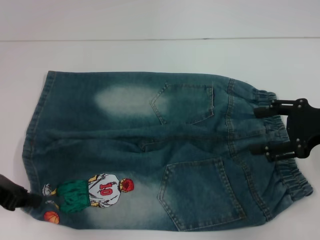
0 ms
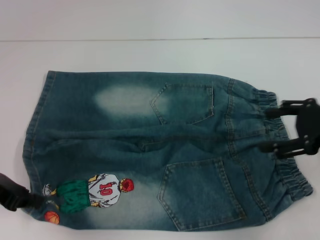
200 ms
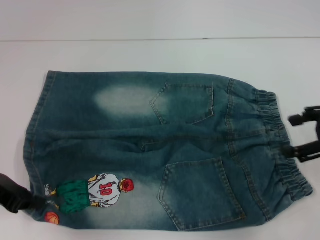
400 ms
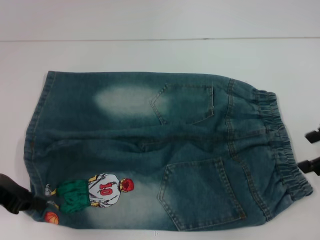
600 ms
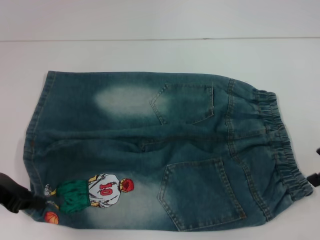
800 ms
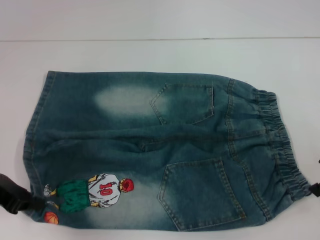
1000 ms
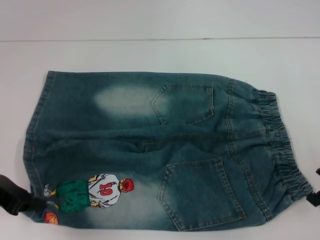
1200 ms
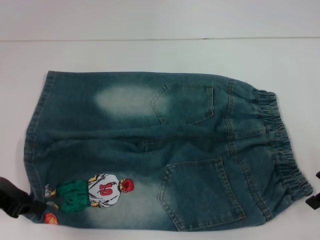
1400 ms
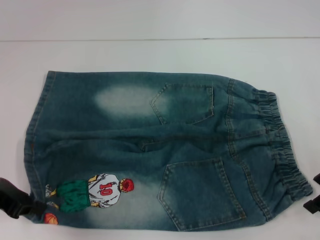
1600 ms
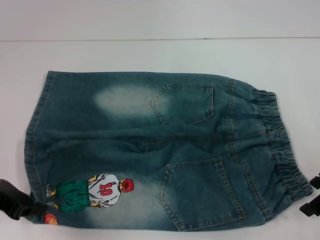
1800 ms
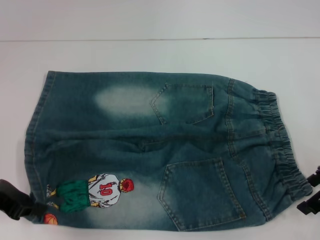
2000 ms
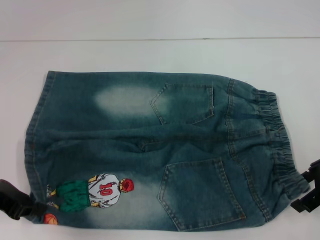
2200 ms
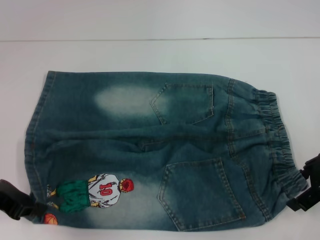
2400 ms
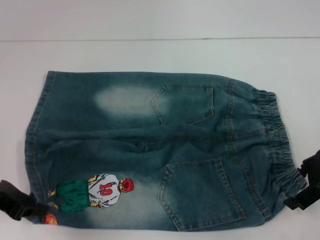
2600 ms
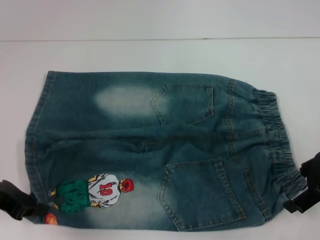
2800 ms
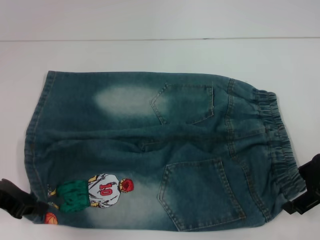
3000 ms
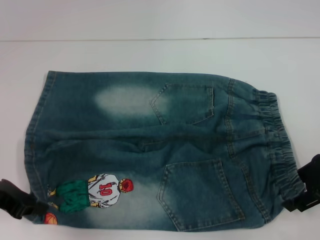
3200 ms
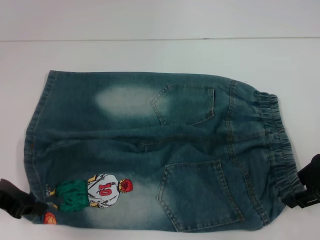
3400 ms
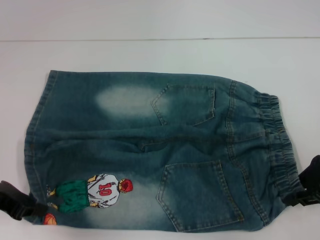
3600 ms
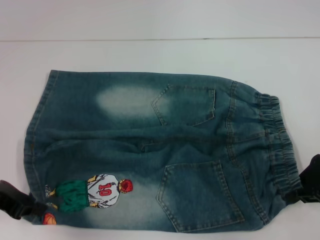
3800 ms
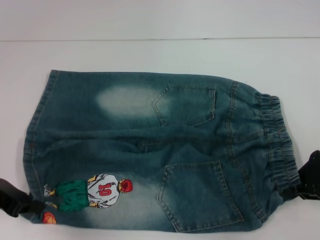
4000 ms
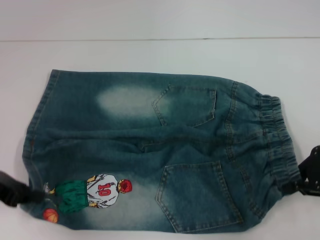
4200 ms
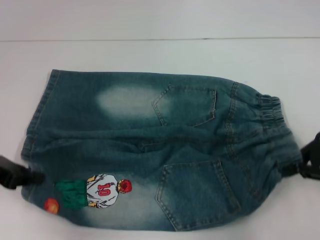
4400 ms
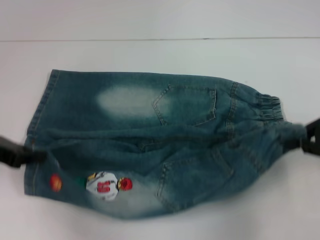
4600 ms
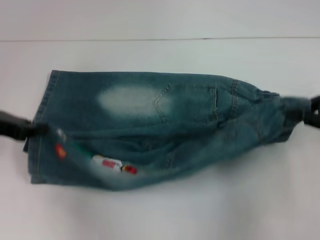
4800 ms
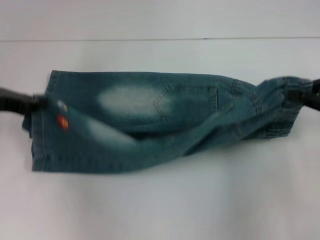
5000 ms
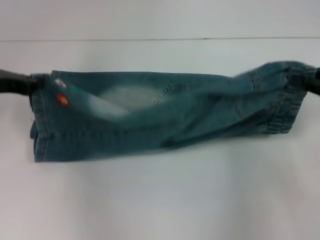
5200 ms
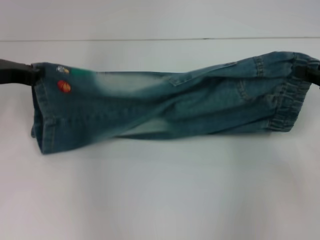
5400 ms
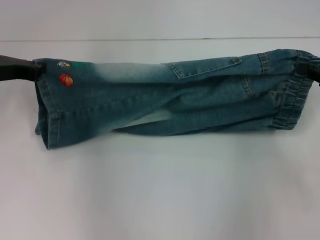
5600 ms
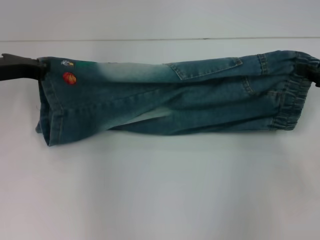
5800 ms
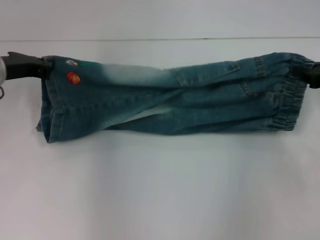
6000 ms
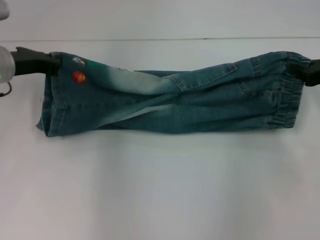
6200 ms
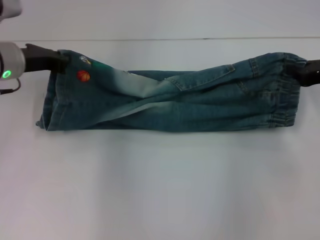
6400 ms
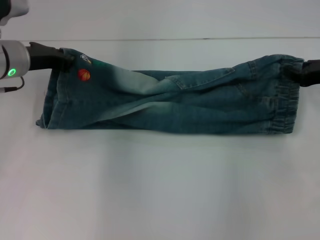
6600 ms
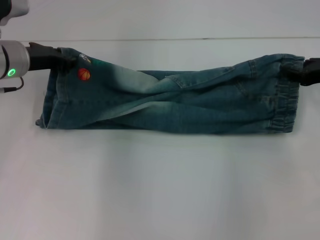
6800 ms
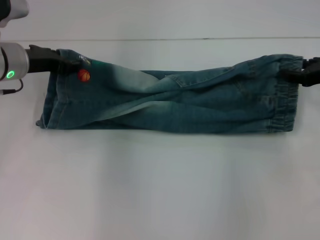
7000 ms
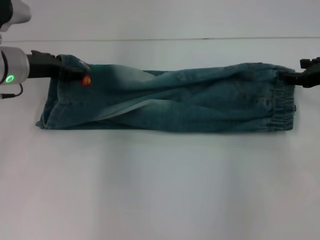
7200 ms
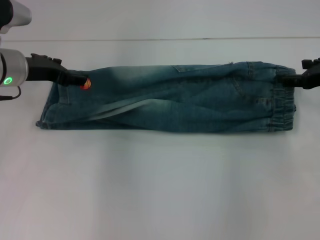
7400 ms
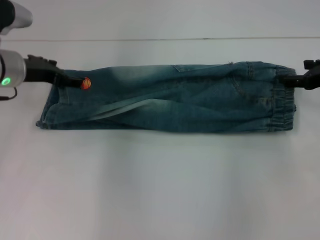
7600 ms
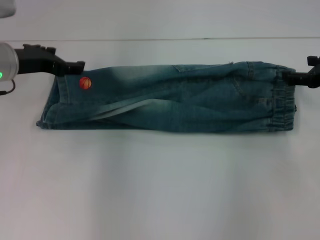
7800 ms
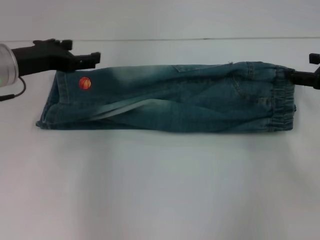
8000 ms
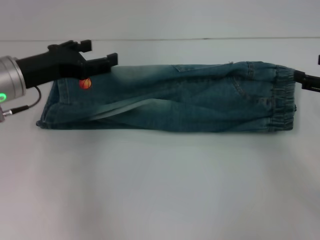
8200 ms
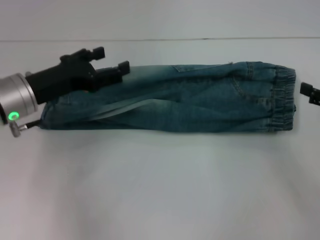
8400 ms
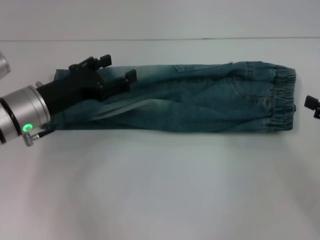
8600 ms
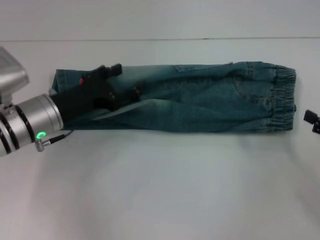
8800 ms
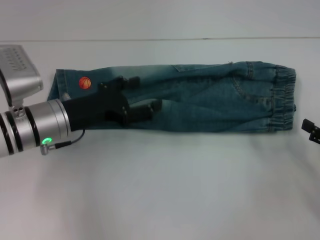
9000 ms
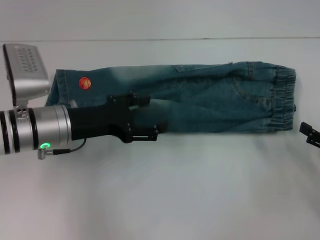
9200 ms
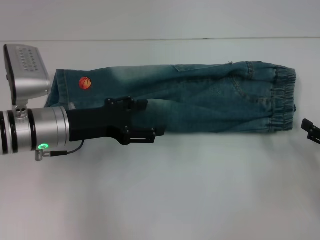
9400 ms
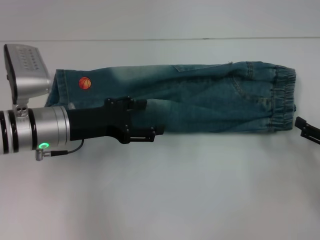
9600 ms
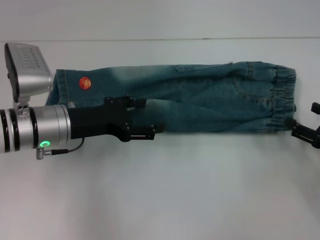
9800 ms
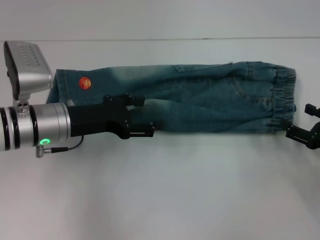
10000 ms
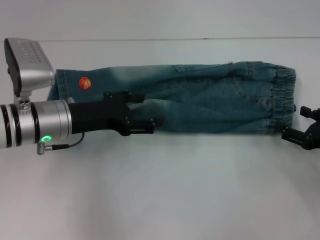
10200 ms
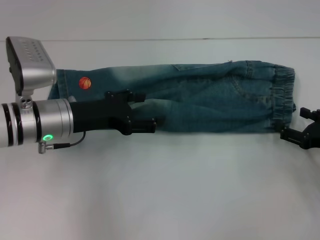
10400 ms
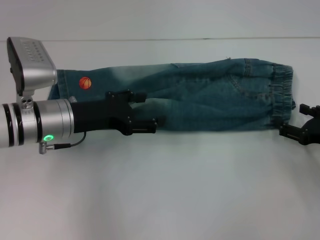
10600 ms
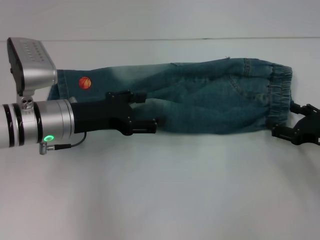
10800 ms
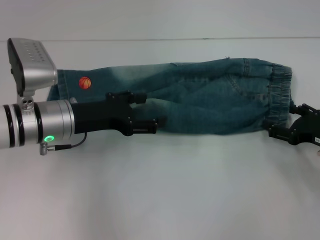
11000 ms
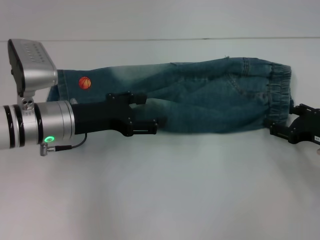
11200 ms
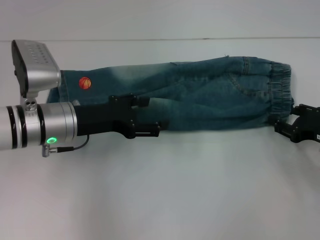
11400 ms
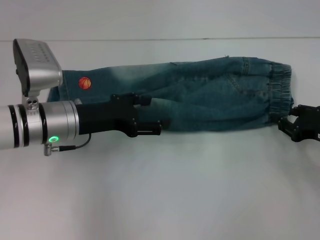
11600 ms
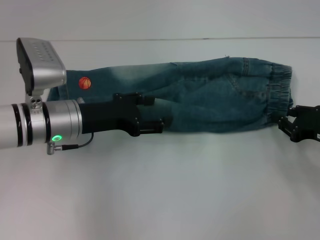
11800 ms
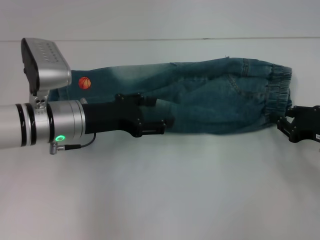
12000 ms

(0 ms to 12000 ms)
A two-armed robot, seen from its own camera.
Step, 0 ms - 3800 ms: Hold the lower right waistband with your right hand.
Step, 4000 ms - 7600 ms: Fold upward with your right hand.
Step, 8000 ms - 11800 ms: Grab the waistband with your right hand.
1600 ms - 3000 ms: The grippers stay close to where they were, moving slightly.
3000 ms - 4400 ms: The right gripper closes up.
4400 ms - 6000 ms: The left gripper goes some 10 cm forward and to the right. The right gripper moves forward, approximately 5 cm.
6000 ms - 7600 ms: The left gripper opens; the right gripper opens up.
7600 ms - 9000 ms: The left gripper travels backward, to the right and downward by approximately 10 cm. The right gripper moves backward and downward, some 15 cm.
9000 ms - 10400 ms: The right gripper ends up about 5 cm from where it was.
10400 ms - 12000 ms: The right gripper closes its fingers.

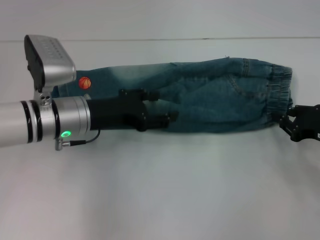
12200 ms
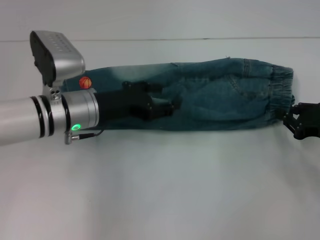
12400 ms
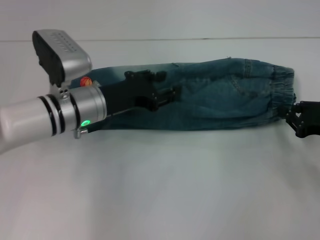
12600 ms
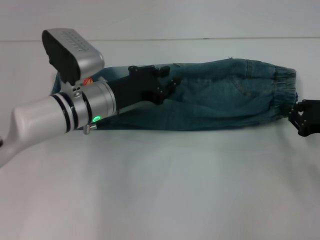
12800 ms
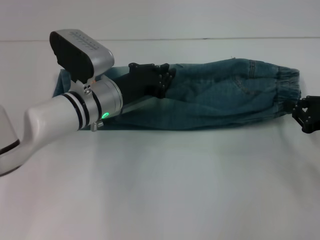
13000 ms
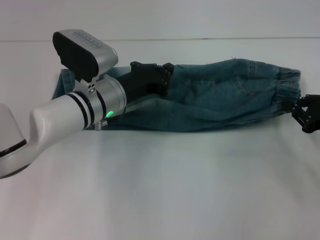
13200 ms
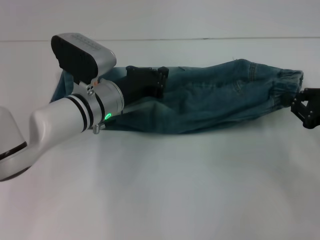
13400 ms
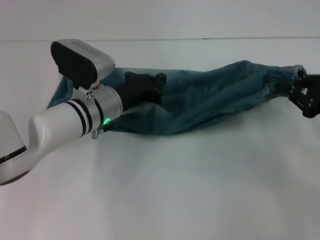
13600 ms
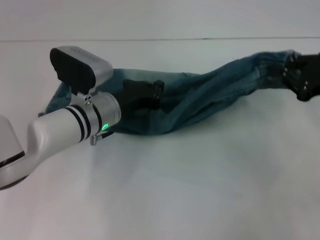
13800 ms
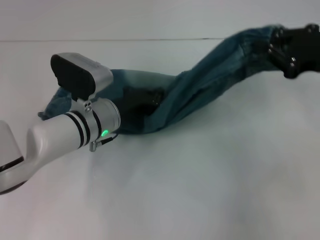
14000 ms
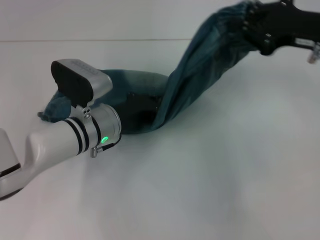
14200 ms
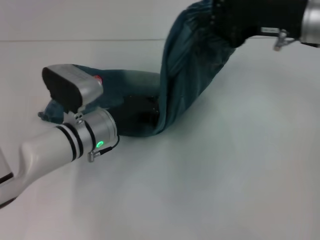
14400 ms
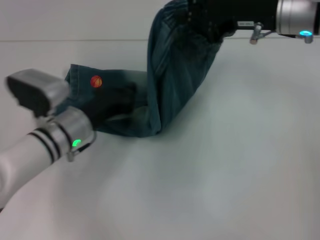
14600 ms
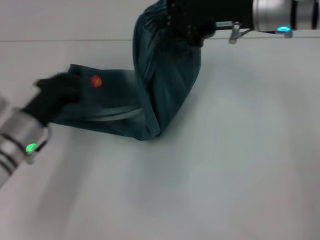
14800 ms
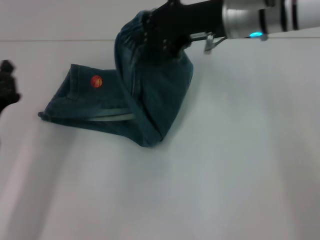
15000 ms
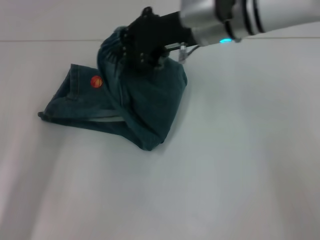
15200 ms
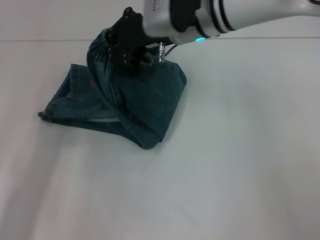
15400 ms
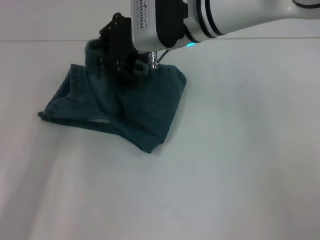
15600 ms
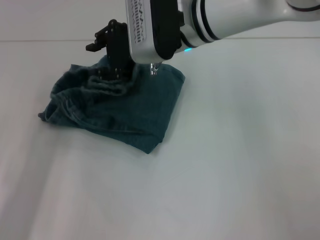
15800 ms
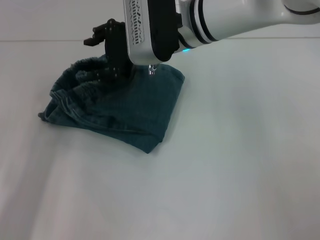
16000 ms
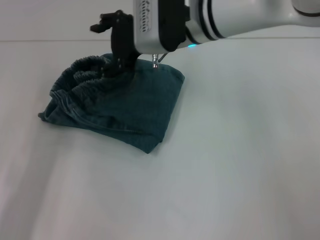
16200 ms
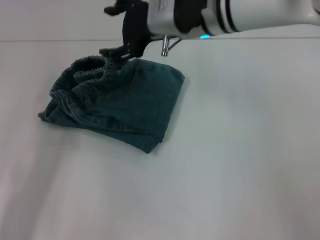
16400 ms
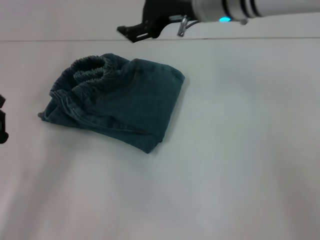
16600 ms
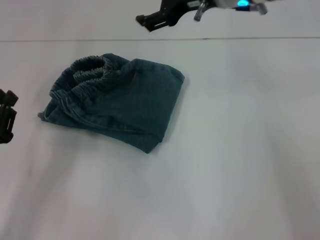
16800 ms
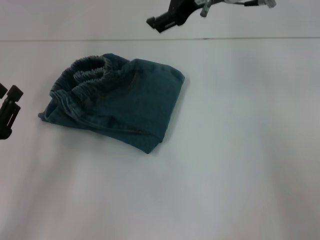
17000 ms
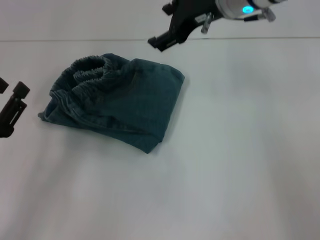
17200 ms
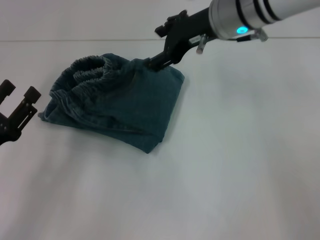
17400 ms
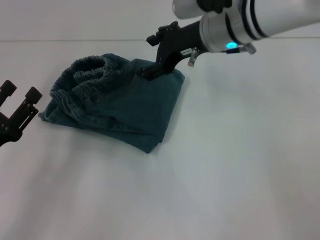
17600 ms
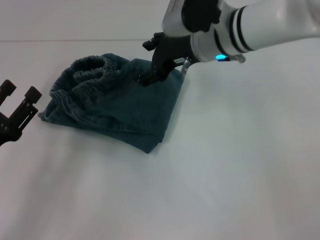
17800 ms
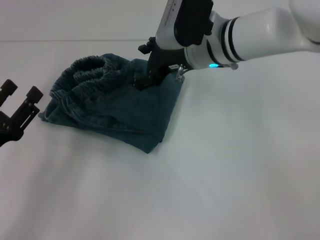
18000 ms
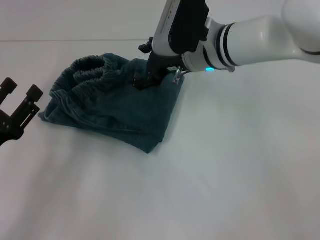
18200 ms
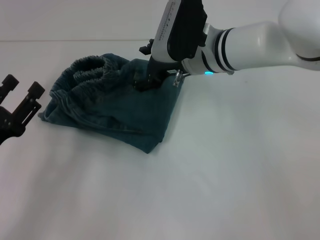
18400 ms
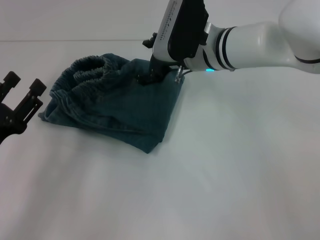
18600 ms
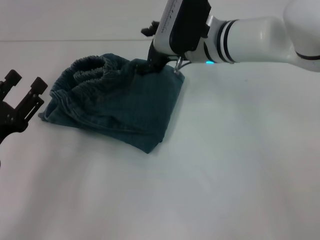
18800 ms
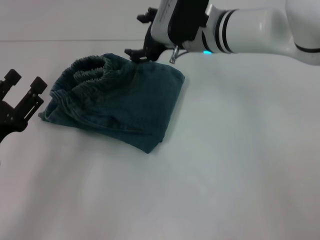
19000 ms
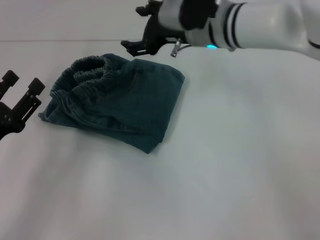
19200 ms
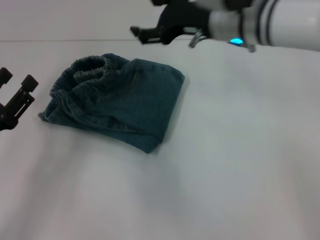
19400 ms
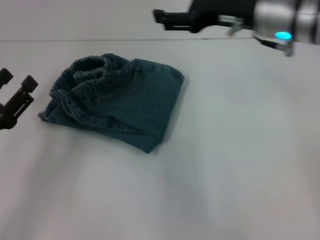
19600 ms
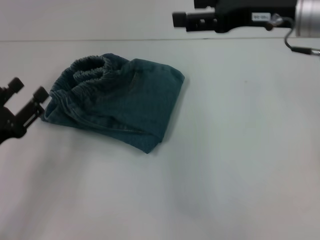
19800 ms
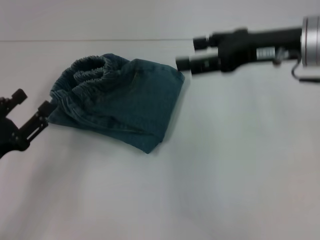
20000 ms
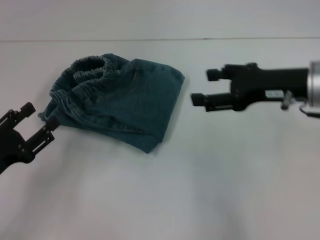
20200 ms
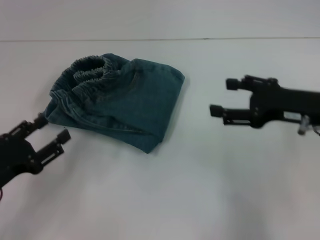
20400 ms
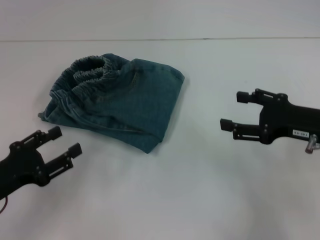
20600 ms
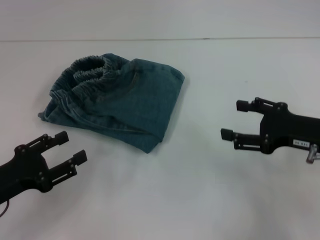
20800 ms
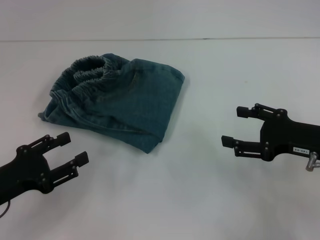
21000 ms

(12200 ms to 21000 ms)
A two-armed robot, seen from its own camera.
Step, 12200 ms - 14400 ms: Press the middle of the pants with your left hand.
Step, 14600 ms - 16000 ms: Fold to the left with your right hand.
12200 ms - 13600 ms: The left gripper changes place by about 5 cm, and closes up. The right gripper moves upward, some 5 cm.
13600 ms - 15200 ms: The left gripper goes roughly 25 cm to the left and backward. Meanwhile the right gripper is displaced to the left and forward by approximately 25 cm.
15200 ms - 16600 ms: The right gripper opens up.
16600 ms - 18000 ms: The right gripper is displaced downward by approximately 5 cm. The left gripper opens its fingers.
18000 ms - 19600 ms: The right gripper travels to the right and upward by about 10 cm.
19600 ms - 21000 ms: The right gripper moves downward, backward and to the right, approximately 20 cm.
